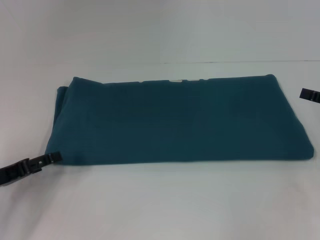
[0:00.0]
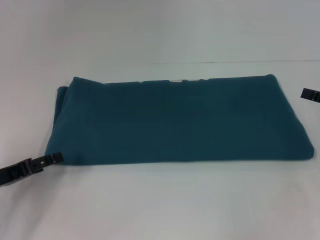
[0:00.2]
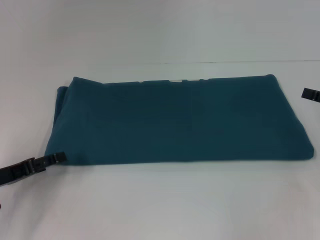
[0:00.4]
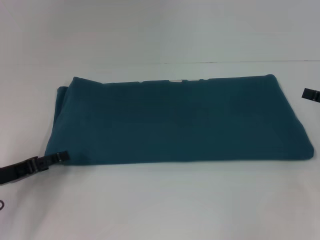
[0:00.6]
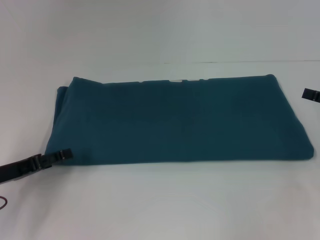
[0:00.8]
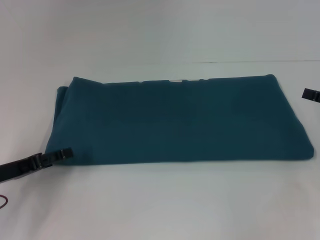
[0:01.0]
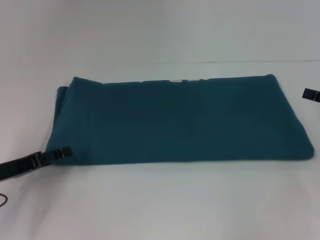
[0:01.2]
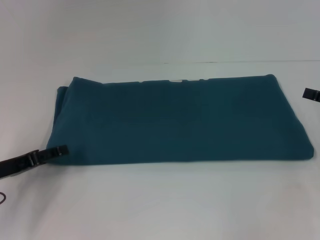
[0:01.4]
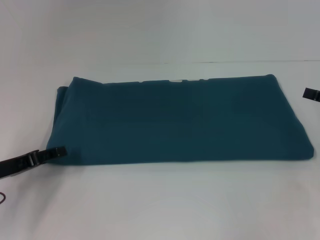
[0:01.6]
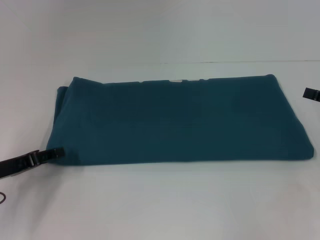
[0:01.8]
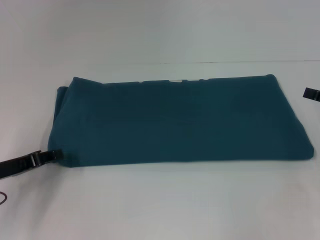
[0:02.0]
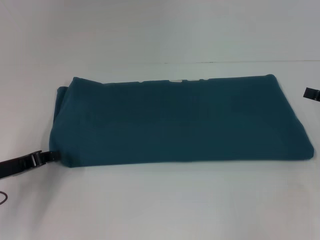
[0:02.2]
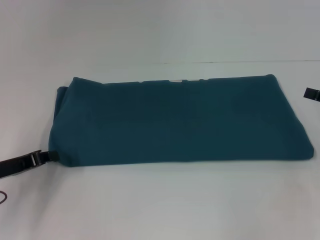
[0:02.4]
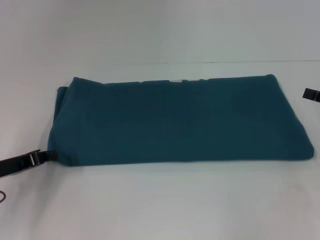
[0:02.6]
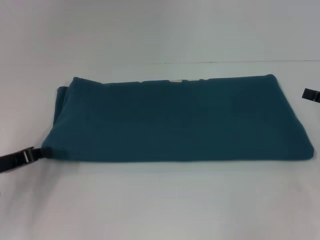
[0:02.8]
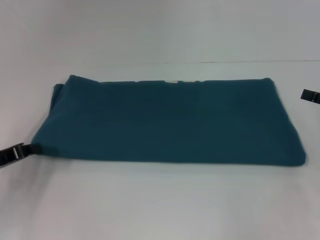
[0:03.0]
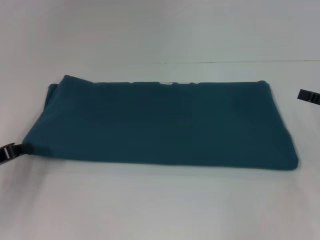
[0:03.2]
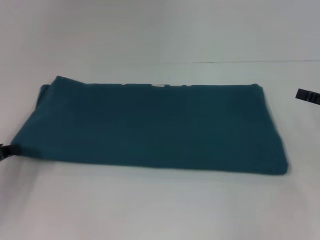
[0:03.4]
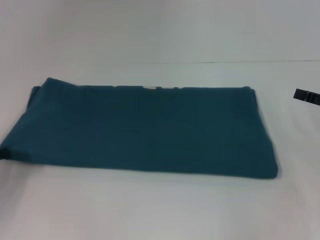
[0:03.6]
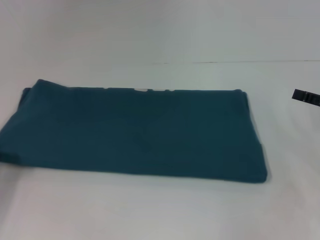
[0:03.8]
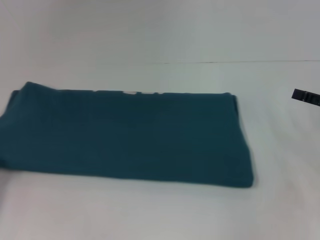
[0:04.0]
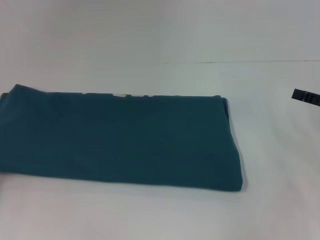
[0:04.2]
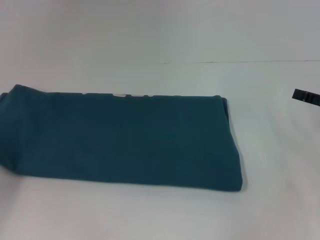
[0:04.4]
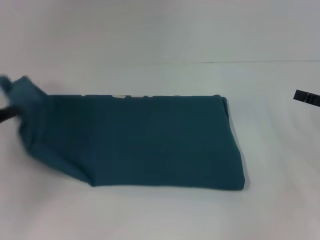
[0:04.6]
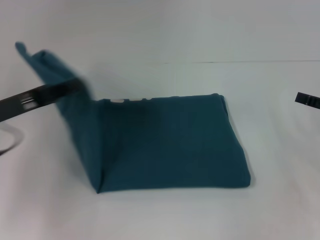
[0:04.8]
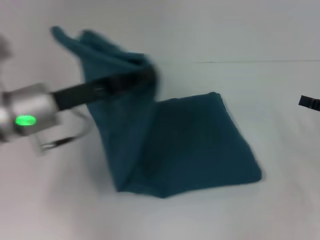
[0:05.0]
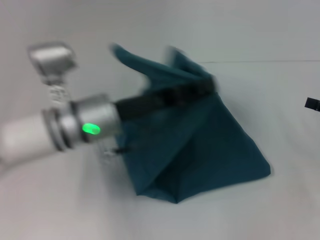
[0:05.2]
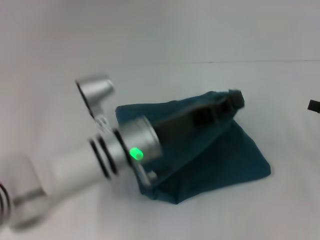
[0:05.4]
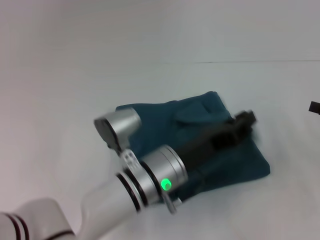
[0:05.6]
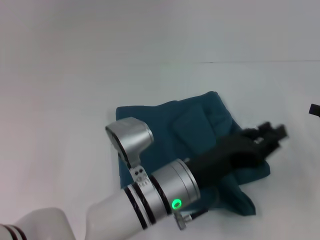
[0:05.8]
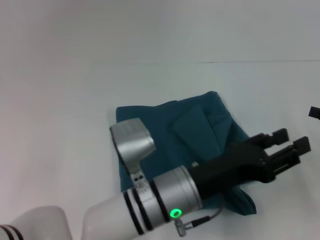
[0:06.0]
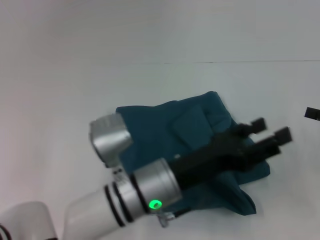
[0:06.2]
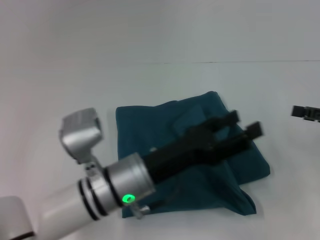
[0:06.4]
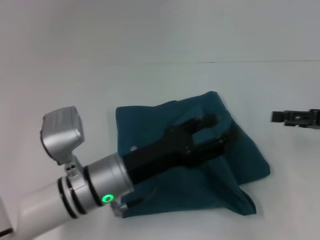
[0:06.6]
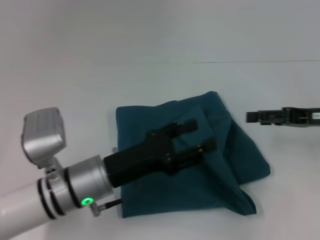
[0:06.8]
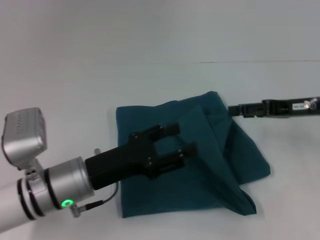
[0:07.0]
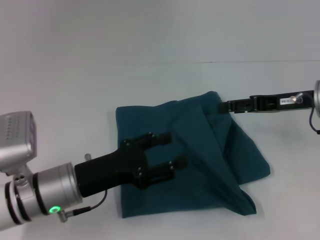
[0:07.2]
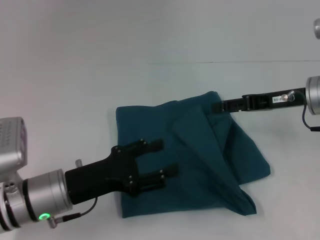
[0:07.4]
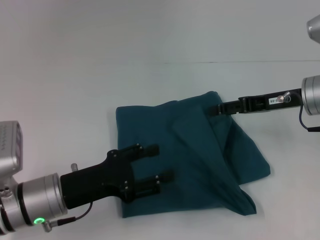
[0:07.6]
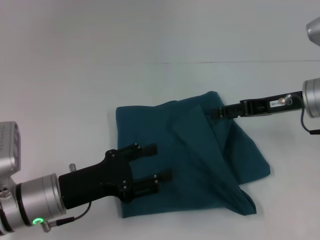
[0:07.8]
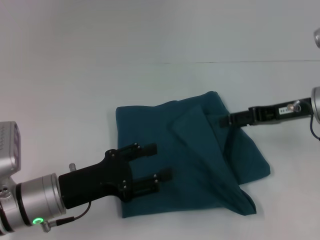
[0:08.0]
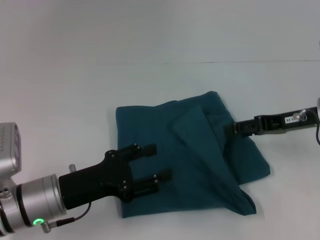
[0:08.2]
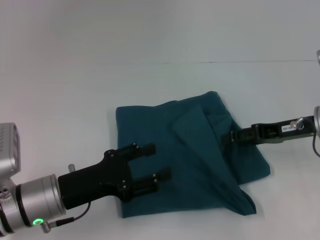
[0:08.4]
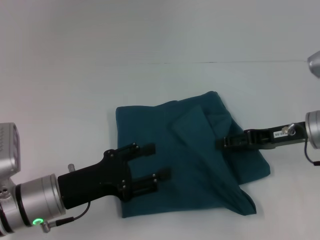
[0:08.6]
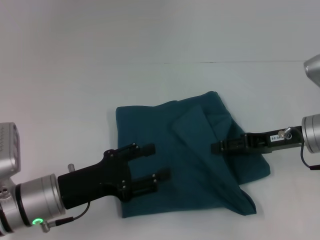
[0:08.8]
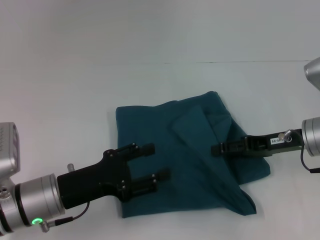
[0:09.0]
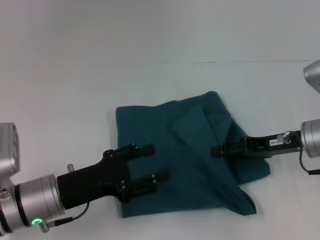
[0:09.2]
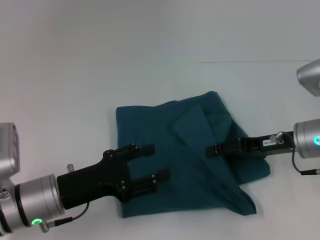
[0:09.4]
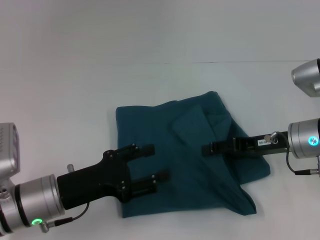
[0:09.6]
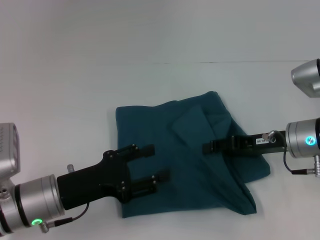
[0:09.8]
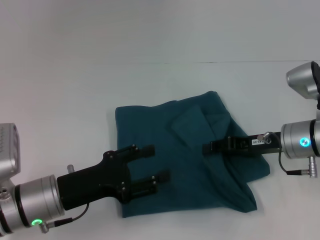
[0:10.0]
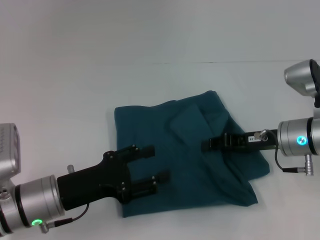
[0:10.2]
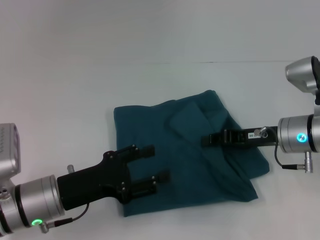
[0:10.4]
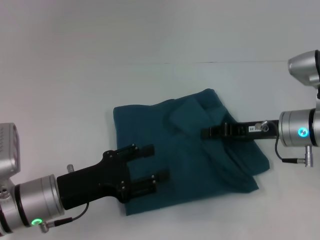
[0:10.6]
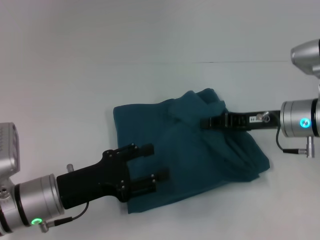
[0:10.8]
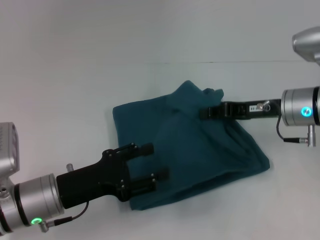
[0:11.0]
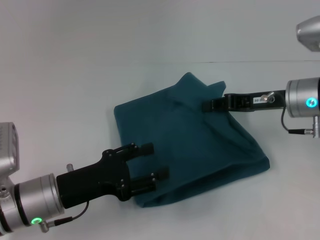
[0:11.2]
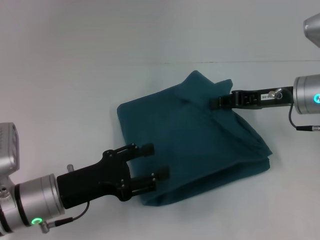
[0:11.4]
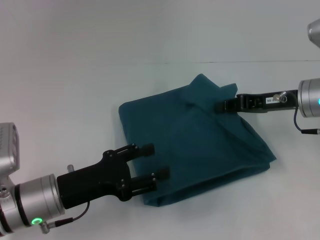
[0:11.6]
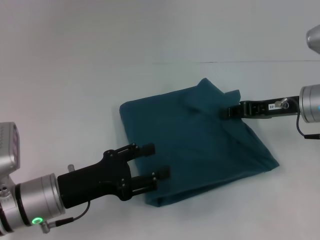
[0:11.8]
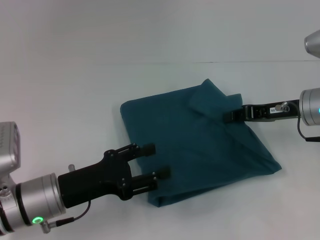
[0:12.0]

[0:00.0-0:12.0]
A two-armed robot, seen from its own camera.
Step, 0:00.0 to 0:05.8: Fold the clothes to the left.
0:00.0 to 0:01.6: The grippers move only a little.
0:01.6 to 0:03.0: The left gripper closes up.
0:03.0 to 0:04.4: The left gripper heads to the left, covering about 5 cm.
0:04.4 to 0:06.0: The left gripper moves to the right, roughly 40 cm, and opens up.
0:06.0 to 0:07.6: The right gripper heads to the left and forward, covering some 15 cm. The left gripper heads to the left, covering about 15 cm, and opens up.
0:07.6 to 0:09.0: The right gripper moves about 5 cm.
0:09.0 to 0:10.4: The right gripper closes its fingers.
0:10.4 to 0:12.0: The right gripper ends up roughly 5 cm from where it was.

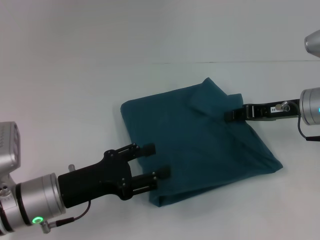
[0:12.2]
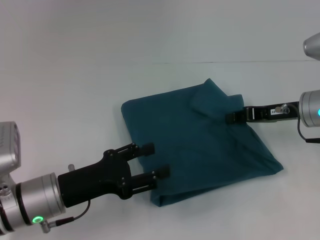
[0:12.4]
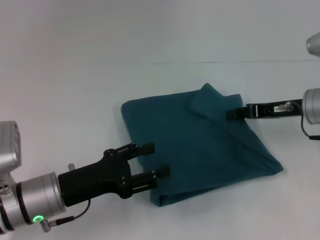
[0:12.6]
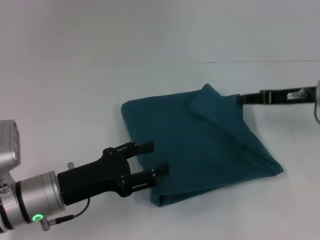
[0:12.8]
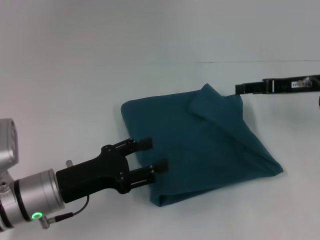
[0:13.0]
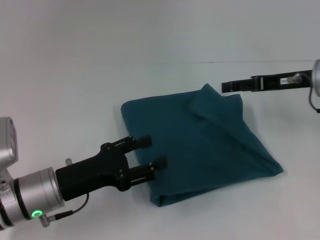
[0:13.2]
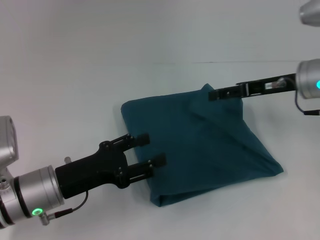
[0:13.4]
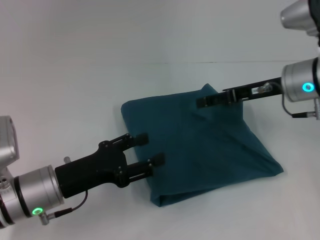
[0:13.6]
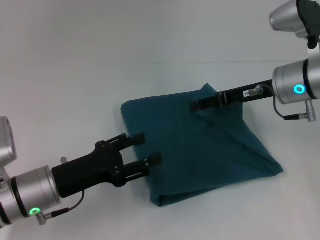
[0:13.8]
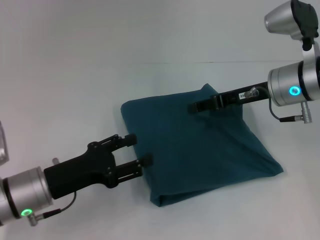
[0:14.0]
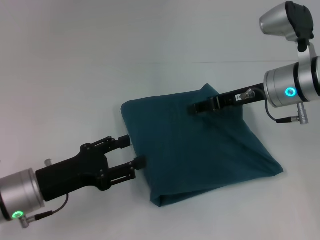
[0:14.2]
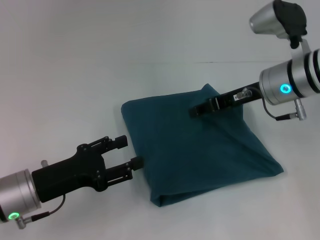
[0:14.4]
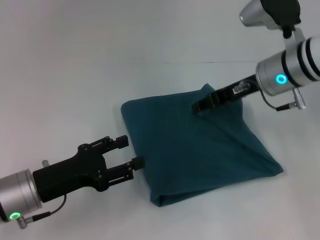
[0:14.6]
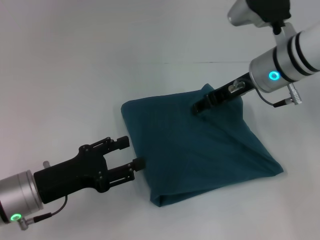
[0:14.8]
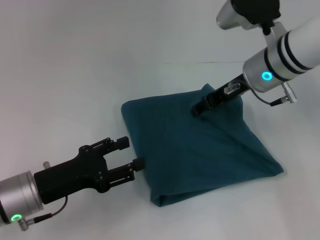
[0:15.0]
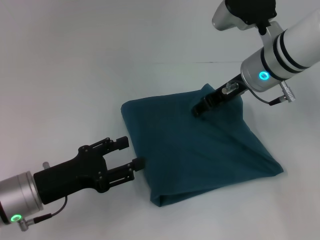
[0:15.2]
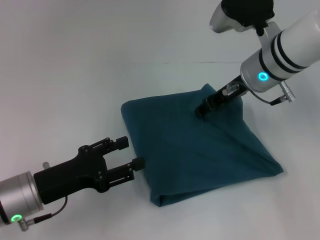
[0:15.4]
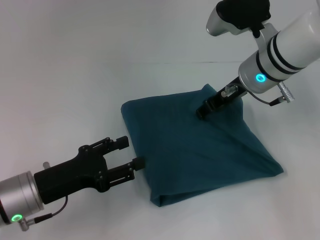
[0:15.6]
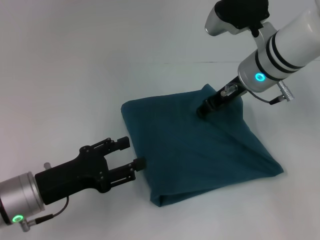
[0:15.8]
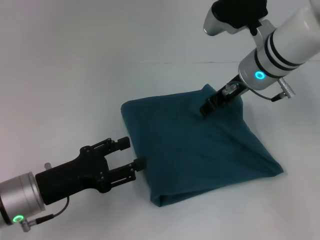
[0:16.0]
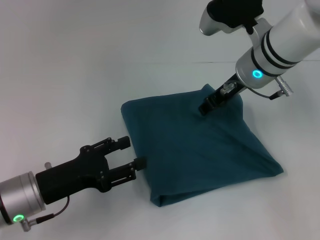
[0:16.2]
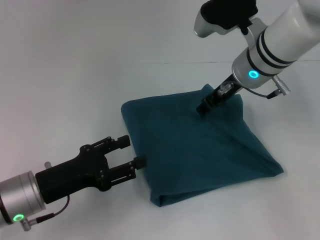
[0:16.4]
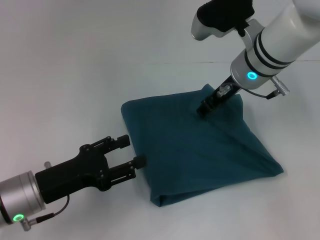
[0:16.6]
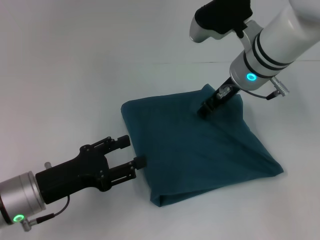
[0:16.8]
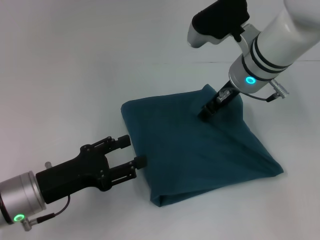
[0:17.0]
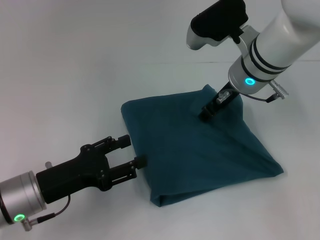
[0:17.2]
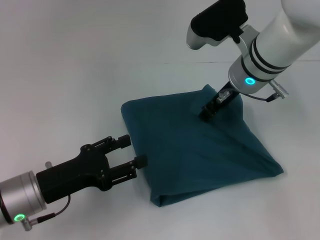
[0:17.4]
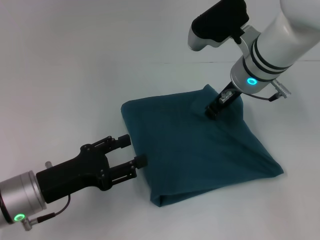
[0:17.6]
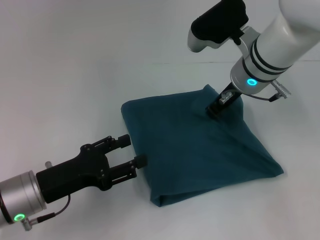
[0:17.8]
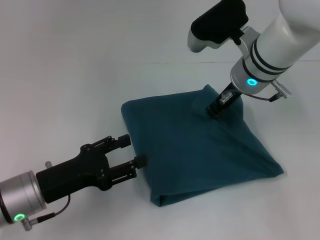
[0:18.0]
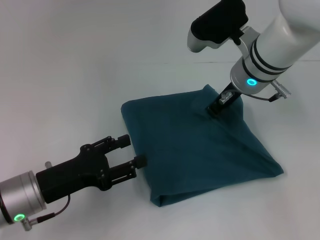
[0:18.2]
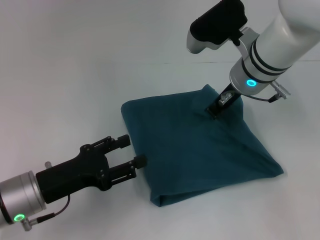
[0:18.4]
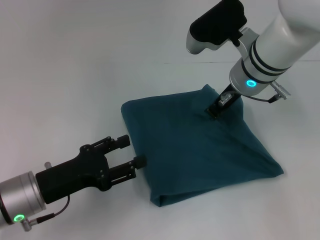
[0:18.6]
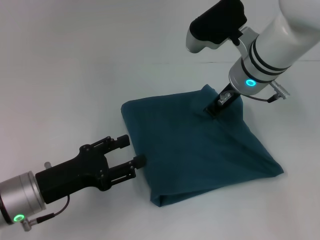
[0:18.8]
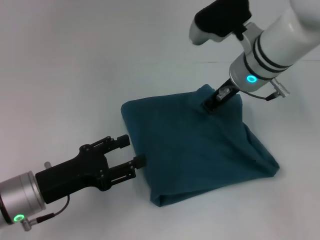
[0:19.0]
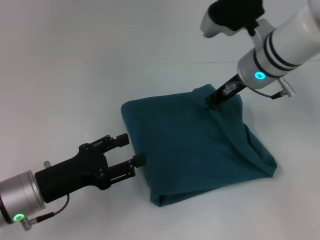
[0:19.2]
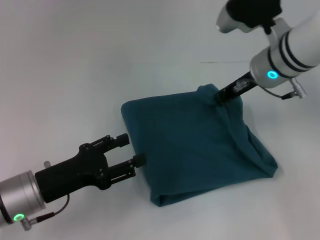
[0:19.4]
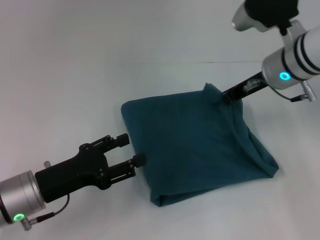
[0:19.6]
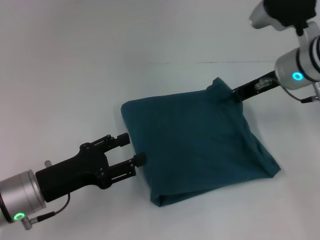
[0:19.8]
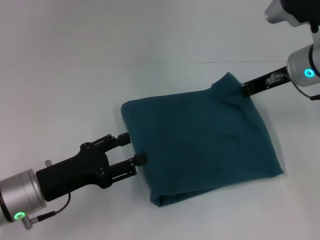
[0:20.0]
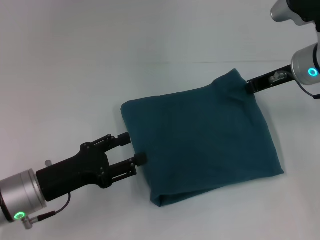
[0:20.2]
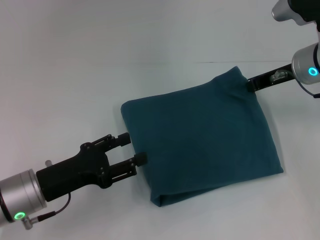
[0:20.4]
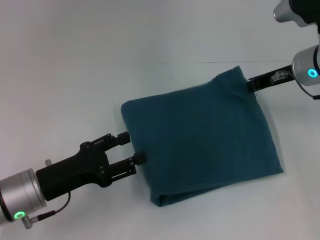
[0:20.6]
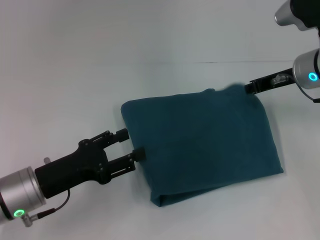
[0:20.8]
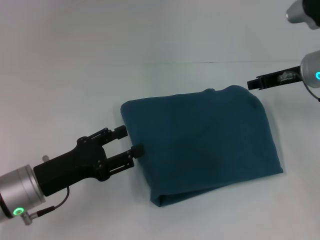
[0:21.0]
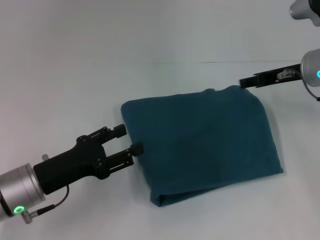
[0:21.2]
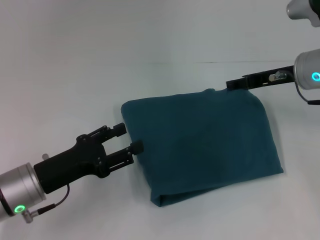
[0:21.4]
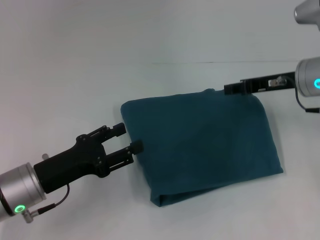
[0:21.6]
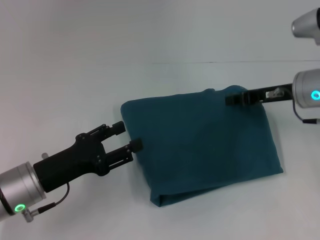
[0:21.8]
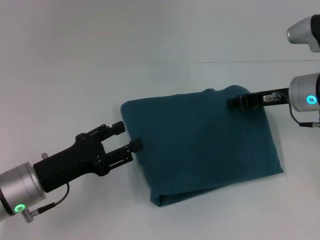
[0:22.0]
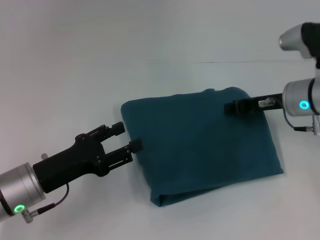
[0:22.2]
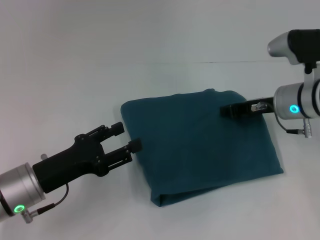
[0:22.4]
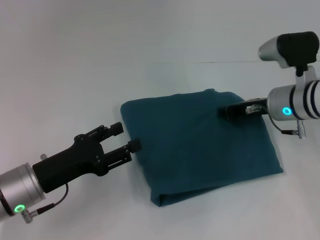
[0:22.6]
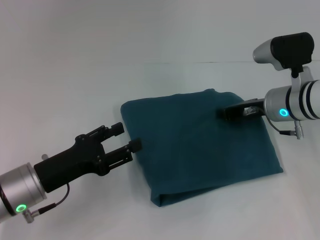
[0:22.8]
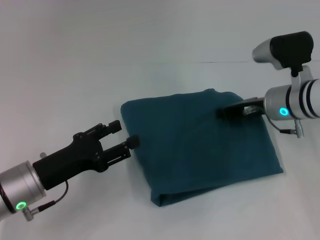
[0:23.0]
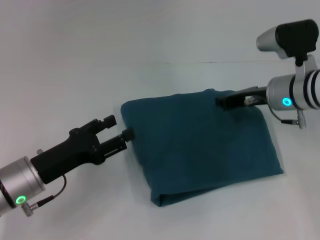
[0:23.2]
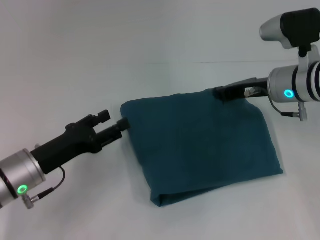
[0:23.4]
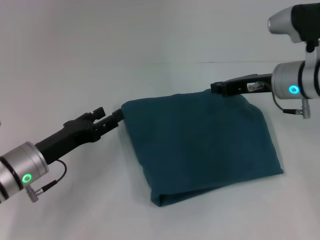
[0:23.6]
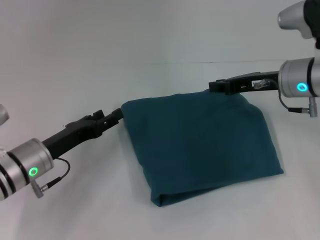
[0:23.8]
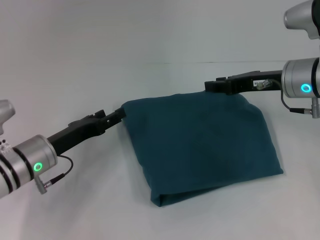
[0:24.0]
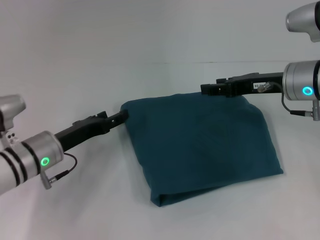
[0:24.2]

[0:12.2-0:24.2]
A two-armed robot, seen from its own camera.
0:12.2 to 0:13.8: The right gripper changes place by roughly 5 cm, and opens.
0:13.8 to 0:15.2: The right gripper travels to the left by roughly 5 cm, and closes up.
0:15.2 to 0:18.2: There are only small adjustments of the grippers.
0:18.2 to 0:19.8: The right gripper heads to the right, covering roughly 10 cm.
0:19.8 to 0:21.2: The right gripper opens up.
0:21.2 to 0:22.6: The right gripper goes roughly 5 cm downward, and closes its fingers.
0:22.6 to 0:24.2: The left gripper goes about 5 cm forward. Meanwhile the right gripper shifts by some 5 cm.
